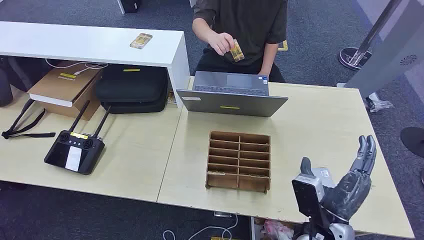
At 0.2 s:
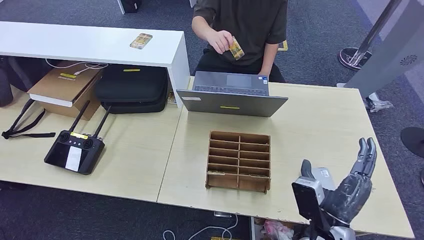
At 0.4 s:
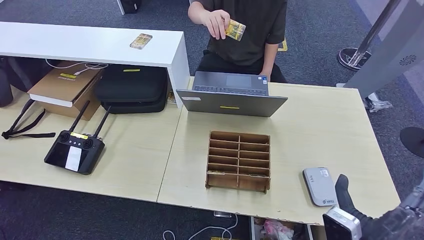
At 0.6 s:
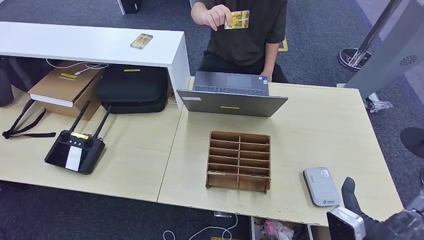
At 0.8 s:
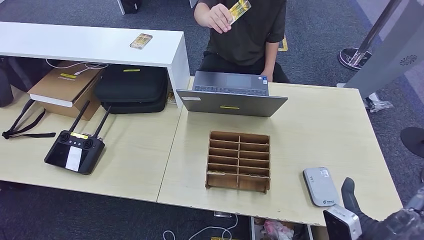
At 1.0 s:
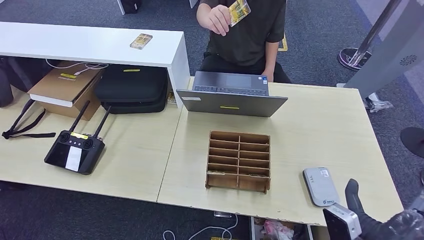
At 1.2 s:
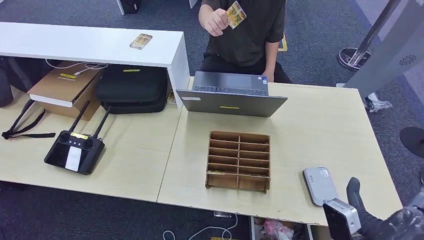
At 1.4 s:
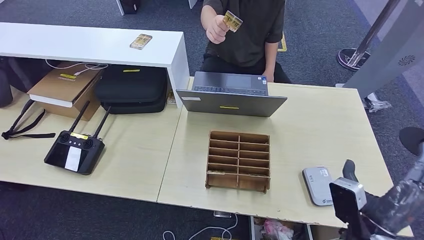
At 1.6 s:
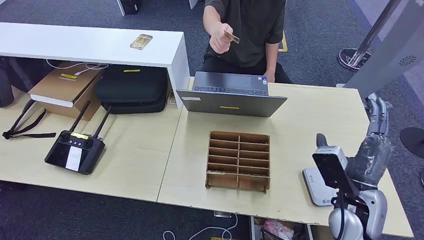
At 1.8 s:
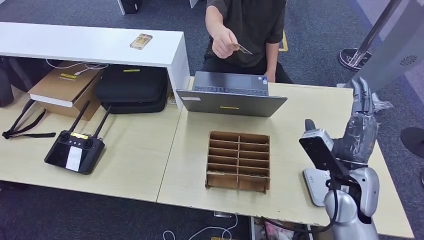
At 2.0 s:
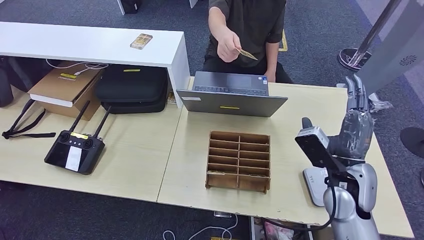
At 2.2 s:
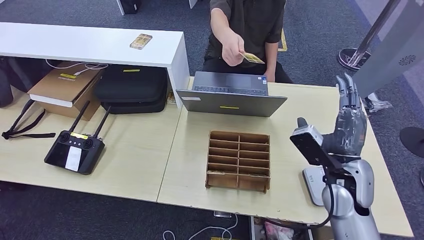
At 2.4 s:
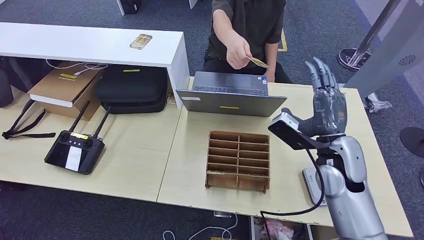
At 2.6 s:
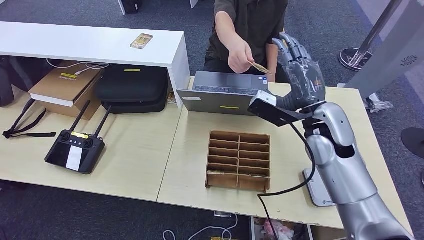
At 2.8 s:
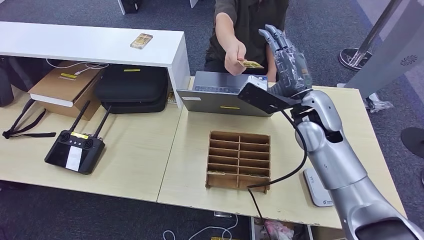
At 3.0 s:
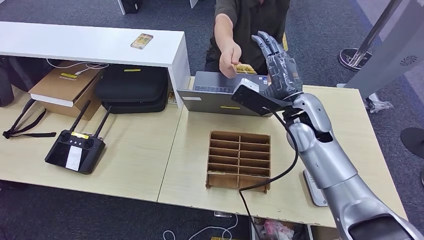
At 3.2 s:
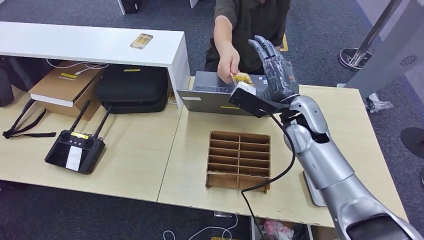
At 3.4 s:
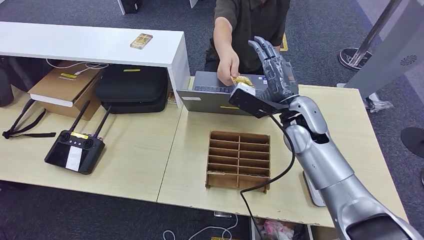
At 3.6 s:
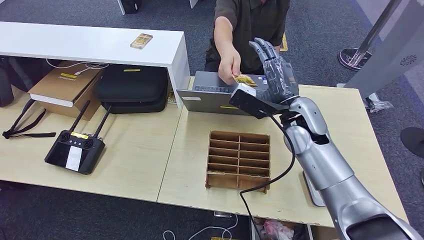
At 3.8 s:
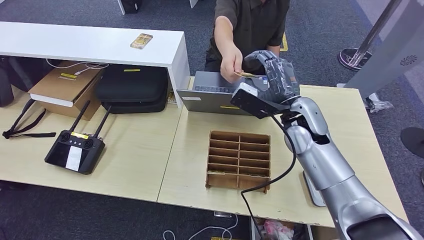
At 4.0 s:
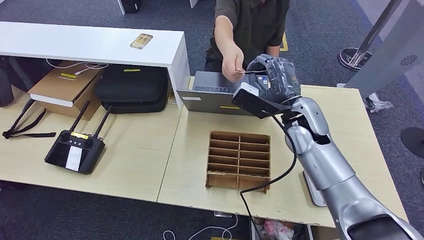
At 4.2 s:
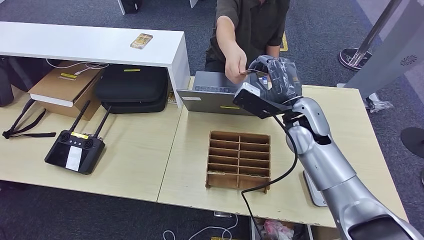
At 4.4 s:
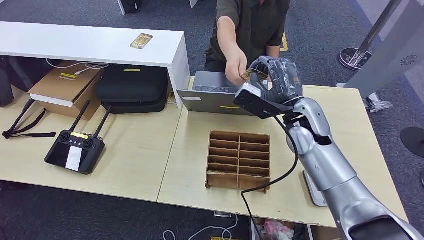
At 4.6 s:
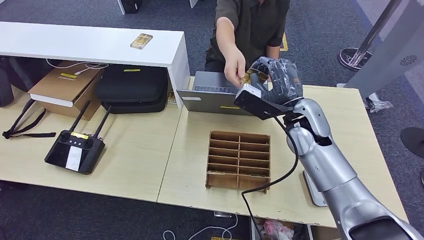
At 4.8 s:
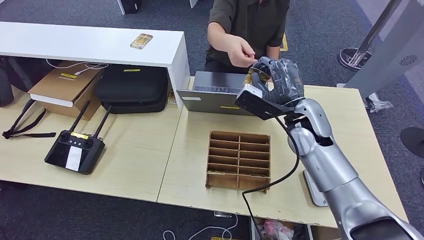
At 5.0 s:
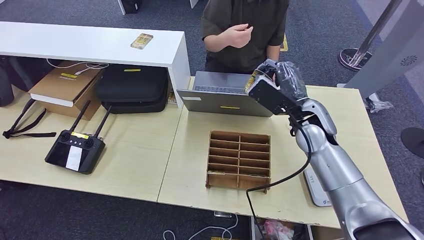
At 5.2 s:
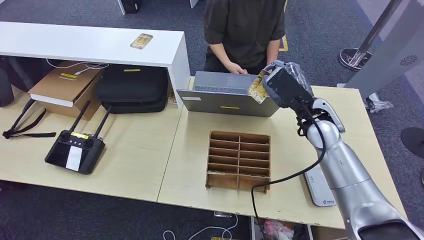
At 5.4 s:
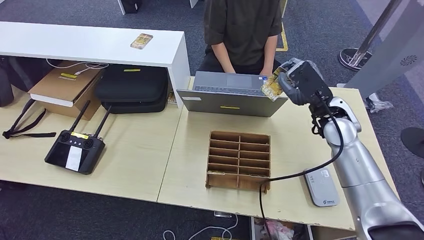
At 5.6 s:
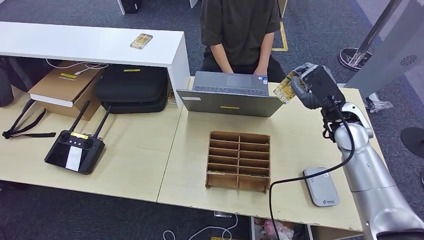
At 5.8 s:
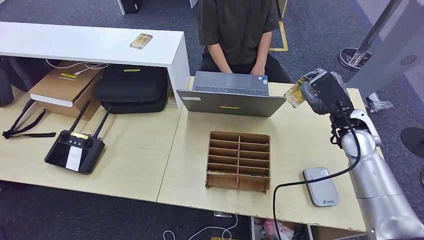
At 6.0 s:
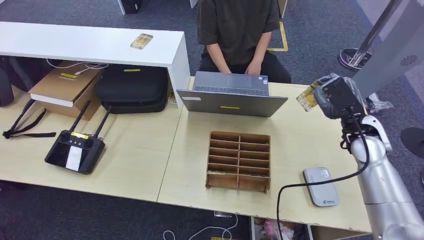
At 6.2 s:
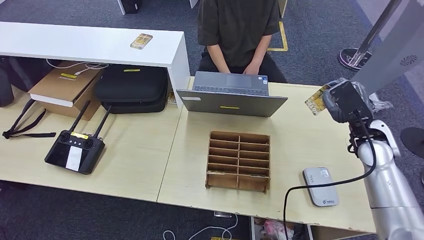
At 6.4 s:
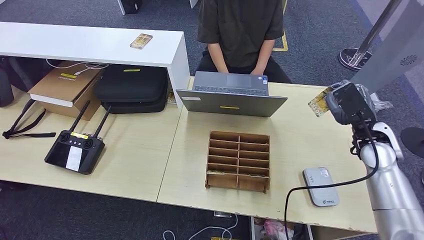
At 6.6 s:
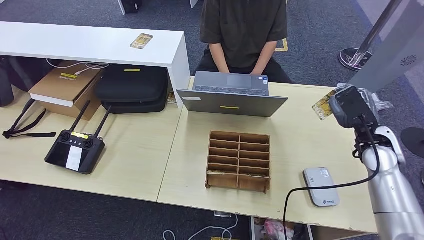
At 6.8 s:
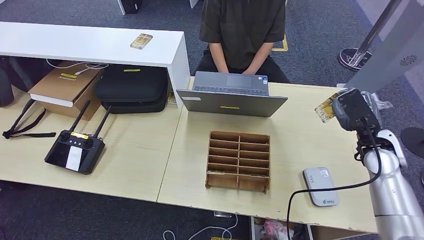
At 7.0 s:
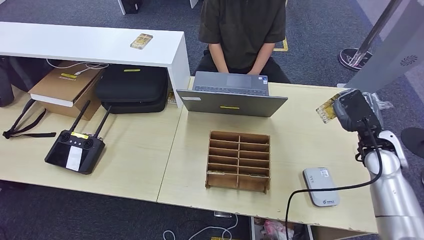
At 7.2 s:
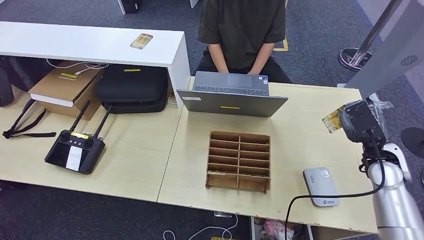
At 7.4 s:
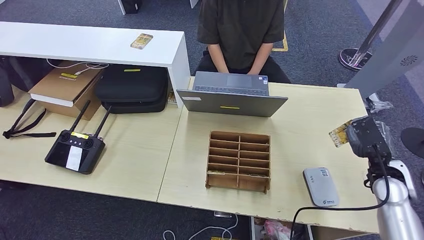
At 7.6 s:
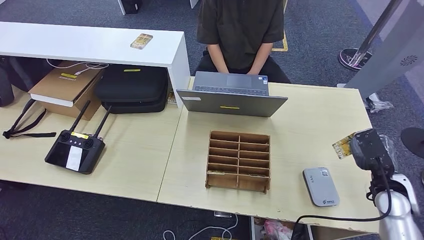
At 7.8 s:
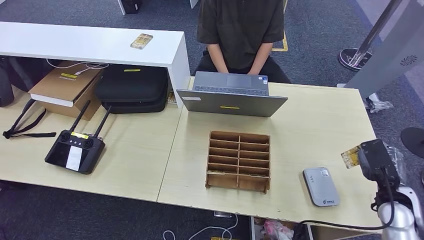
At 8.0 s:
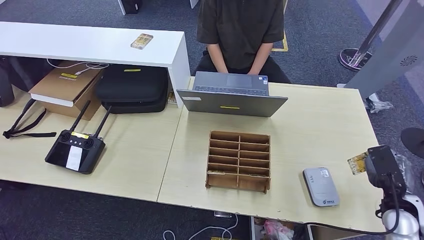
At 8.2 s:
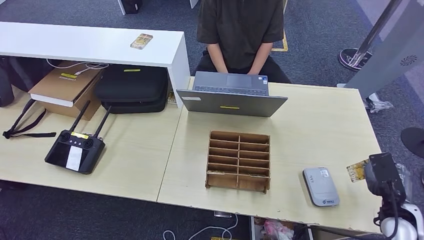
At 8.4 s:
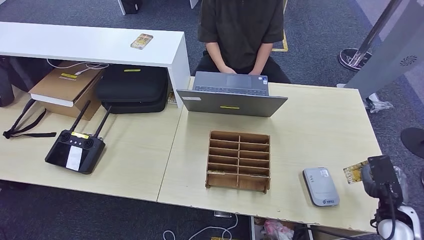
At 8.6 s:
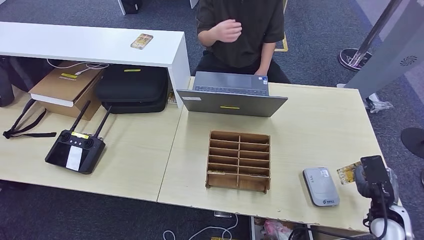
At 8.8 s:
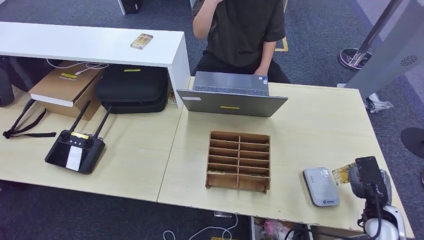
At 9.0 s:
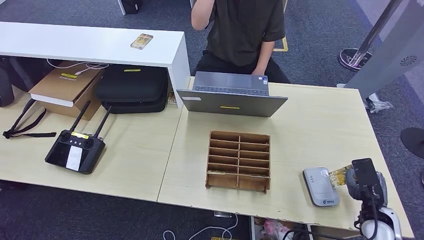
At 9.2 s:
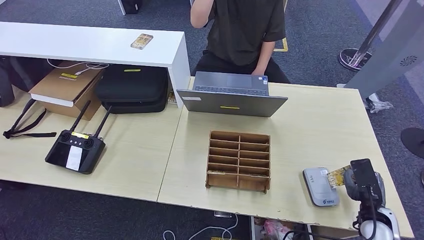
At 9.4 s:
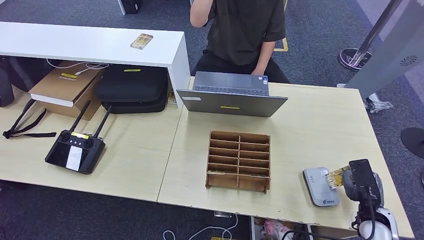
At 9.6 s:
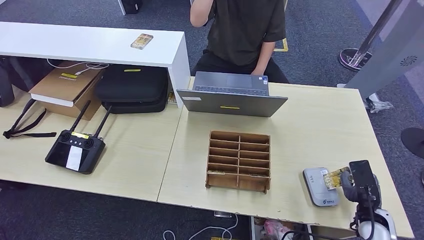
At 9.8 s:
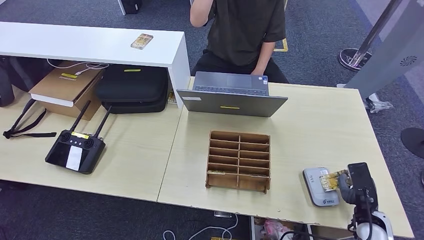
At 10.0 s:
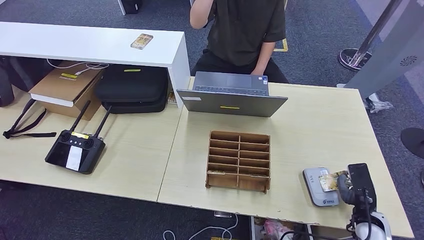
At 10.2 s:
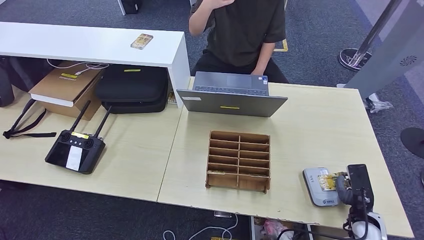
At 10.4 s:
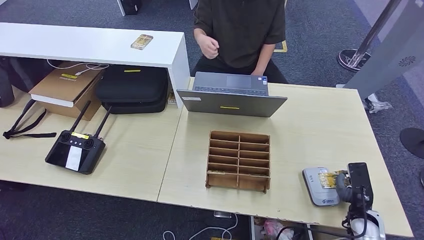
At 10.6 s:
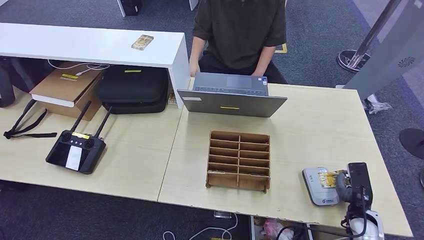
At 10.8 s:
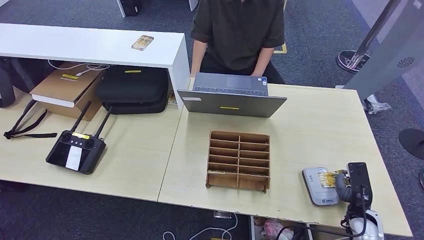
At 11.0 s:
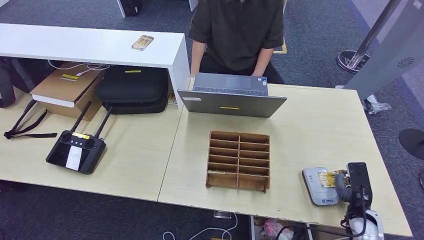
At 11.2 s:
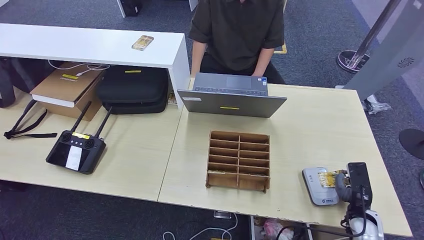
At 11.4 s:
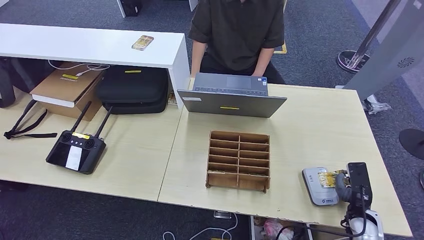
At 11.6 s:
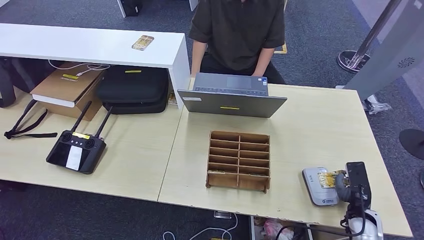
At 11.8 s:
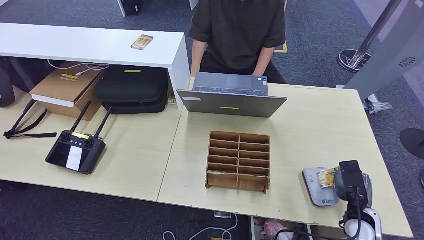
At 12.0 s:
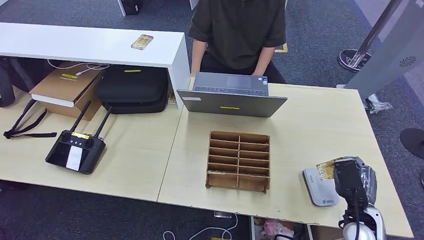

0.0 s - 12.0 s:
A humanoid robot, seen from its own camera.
Step, 0.0 s - 5.2 s: Take the ID card from the person's hand.
Step, 5.6 s - 10.6 s: Place the ID card on the card reader.
1.6 s - 3.0 s: The right hand travels forward, to the left and upward by some 20 cm.
3.0 s - 4.4 s: Neither hand changes place.
4.4 s - 6.0 s: The right hand travels to the right by roughly 15 cm.
6.0 s - 7.6 s: The right hand moves downward, backward and to the right, some 15 cm.
7.6 s - 9.0 s: The right hand is displaced downward by roughly 5 cm.
9.0 s - 10.4 s: The hands stay close to where they were, moving slightly.
10.4 s - 12.0 s: The right hand heads upward and to the left, covering approximately 10 cm.

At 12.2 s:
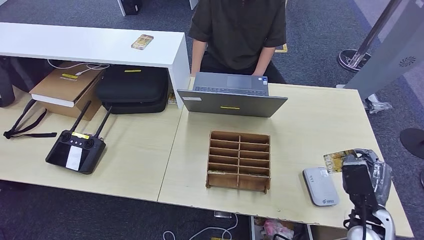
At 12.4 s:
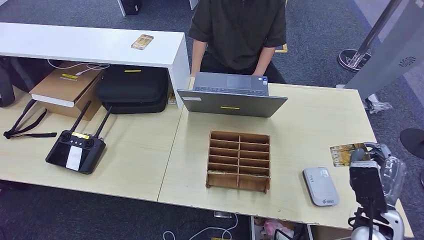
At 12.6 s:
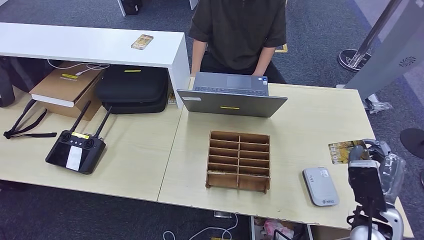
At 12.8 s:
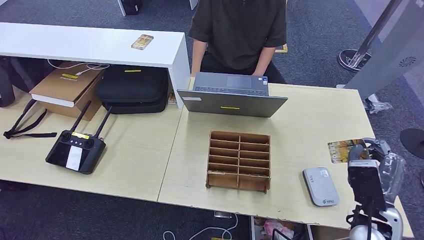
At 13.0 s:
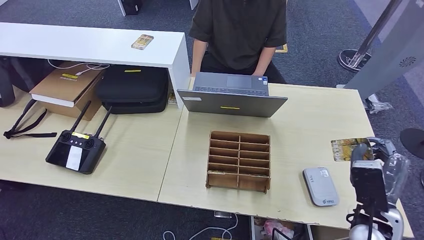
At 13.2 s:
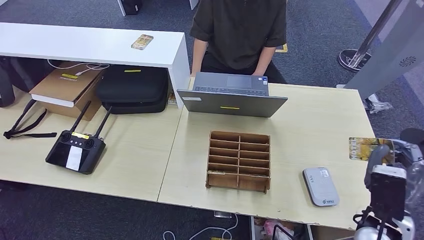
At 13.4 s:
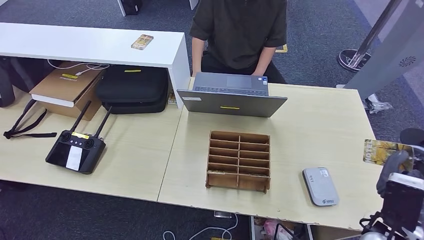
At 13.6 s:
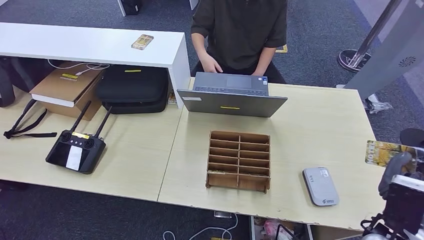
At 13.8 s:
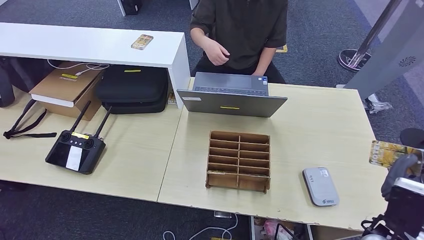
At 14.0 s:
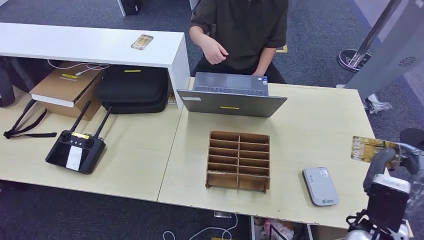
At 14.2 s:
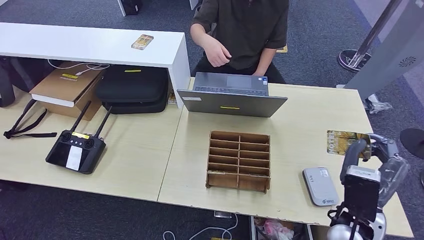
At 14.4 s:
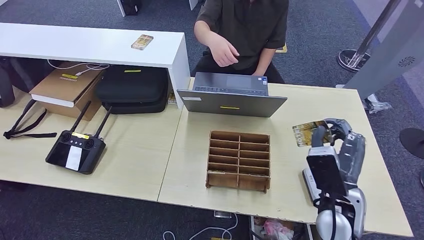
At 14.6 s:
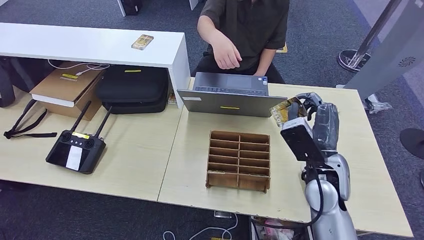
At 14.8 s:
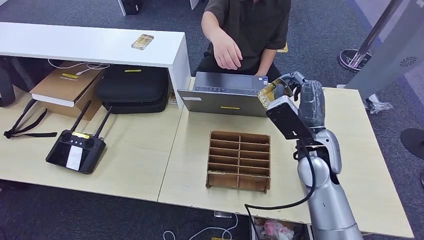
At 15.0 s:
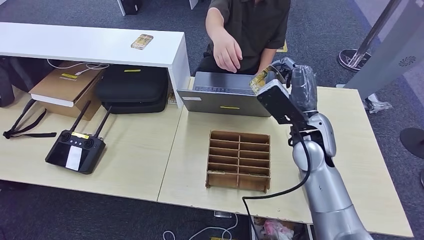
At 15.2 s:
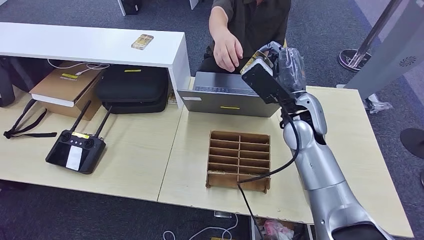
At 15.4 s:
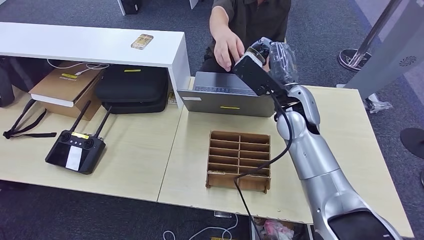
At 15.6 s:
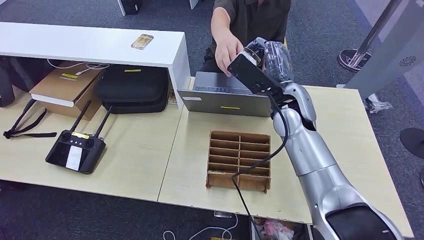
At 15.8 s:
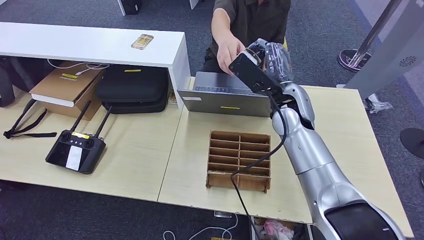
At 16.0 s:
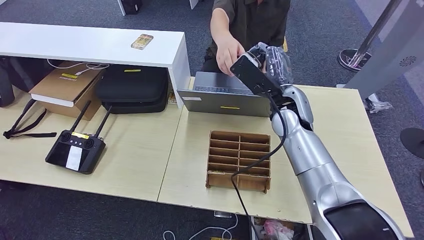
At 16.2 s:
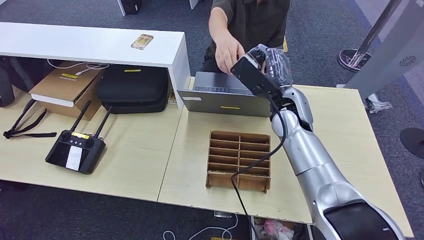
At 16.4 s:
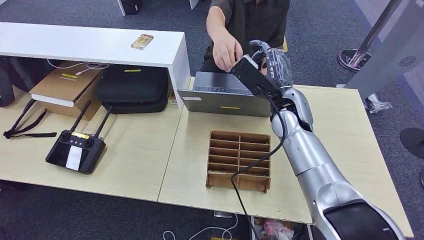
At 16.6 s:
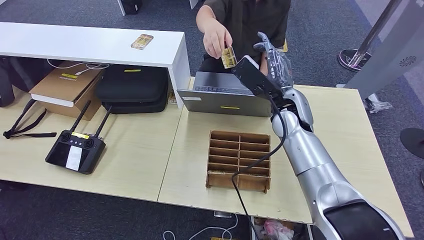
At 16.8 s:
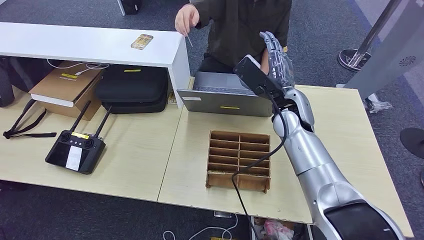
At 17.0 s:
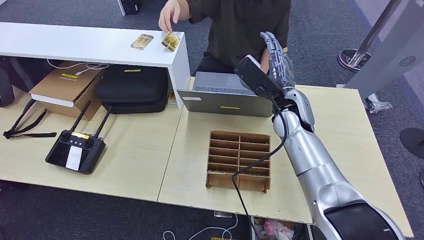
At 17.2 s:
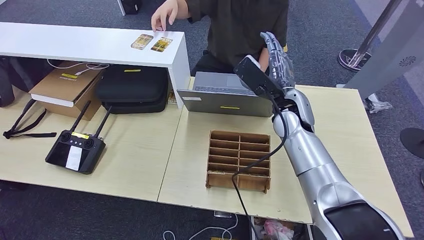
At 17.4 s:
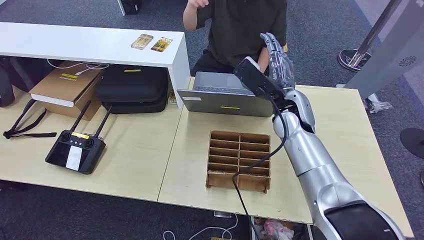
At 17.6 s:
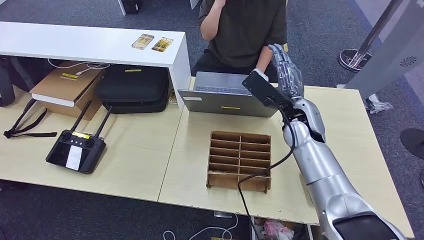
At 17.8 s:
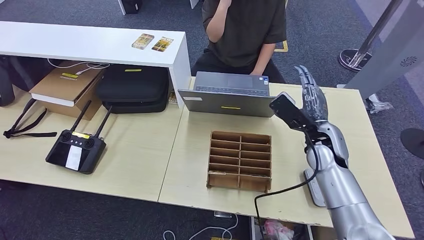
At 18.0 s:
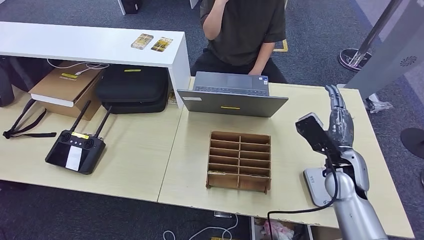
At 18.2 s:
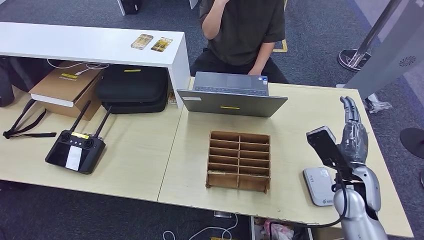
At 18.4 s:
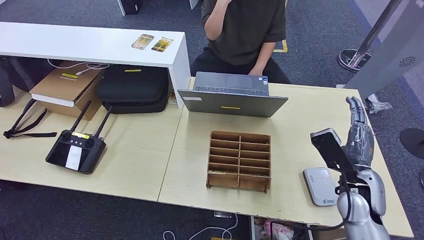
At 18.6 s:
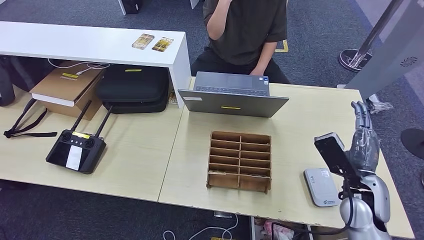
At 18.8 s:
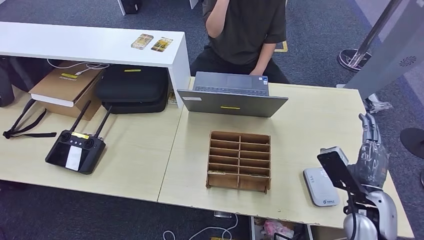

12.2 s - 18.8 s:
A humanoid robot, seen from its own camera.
Step, 12.2 s - 17.2 s: Hand the ID card to the person.
12.2 s - 13.8 s: The right hand goes roughly 5 cm upward.
13.8 s - 15.4 s: The right hand goes about 30 cm forward, to the left and upward.
15.4 s - 17.2 s: There are only small adjustments of the hands.
17.2 s - 18.8 s: The right hand moves backward, to the right and downward, approximately 25 cm.
